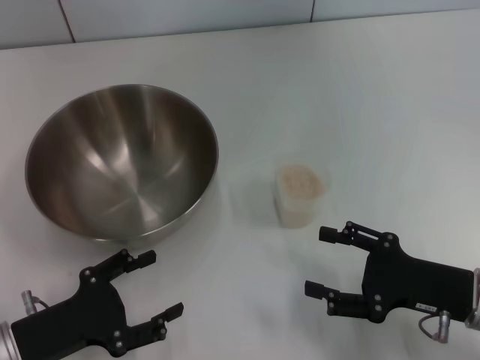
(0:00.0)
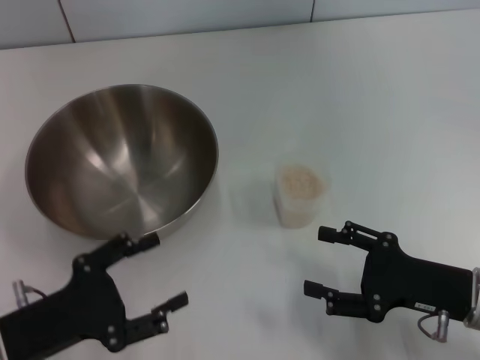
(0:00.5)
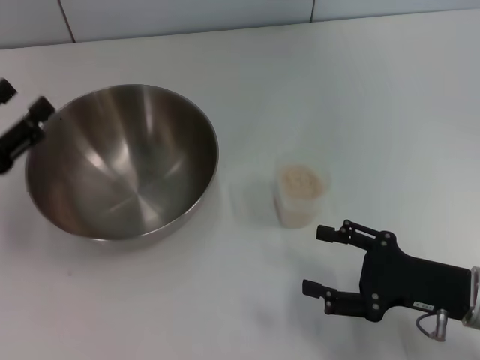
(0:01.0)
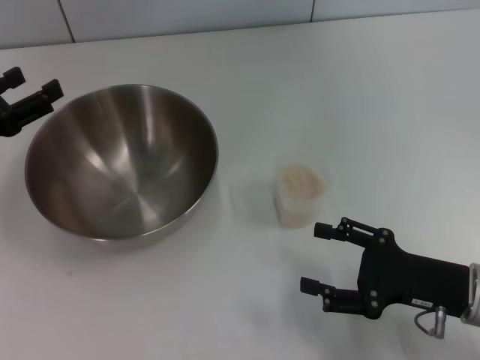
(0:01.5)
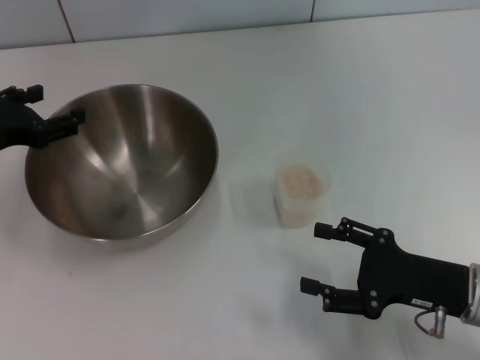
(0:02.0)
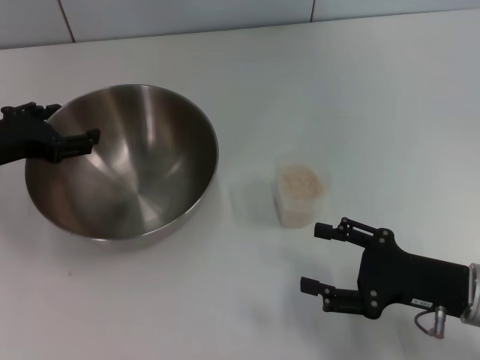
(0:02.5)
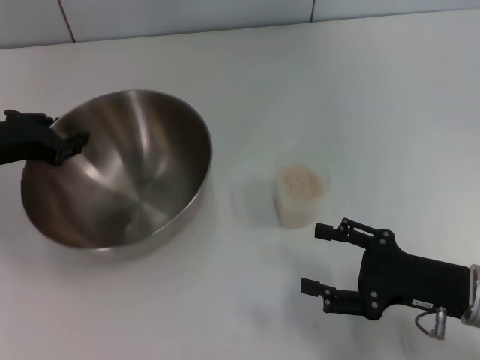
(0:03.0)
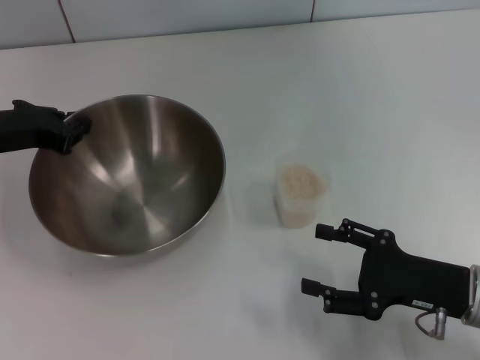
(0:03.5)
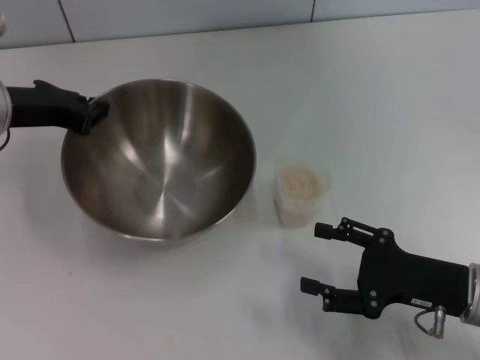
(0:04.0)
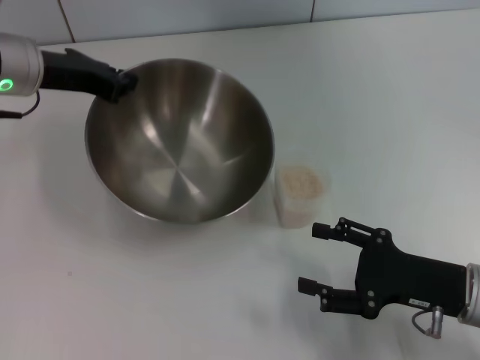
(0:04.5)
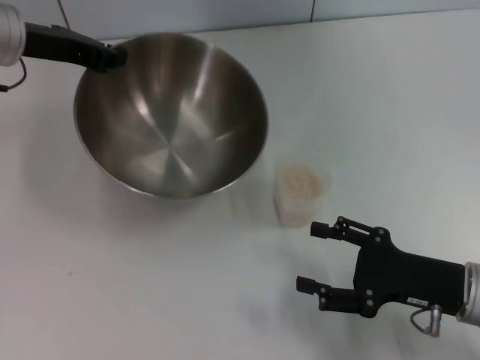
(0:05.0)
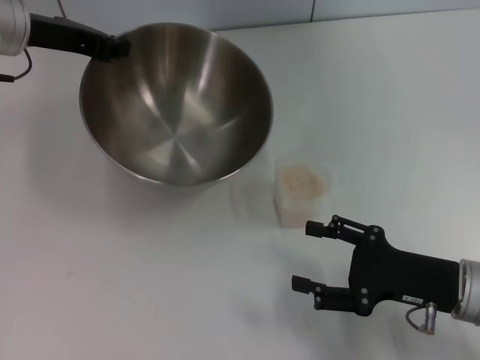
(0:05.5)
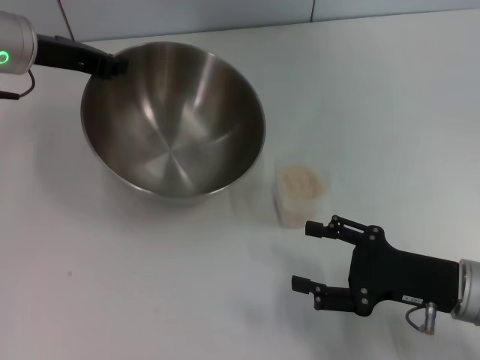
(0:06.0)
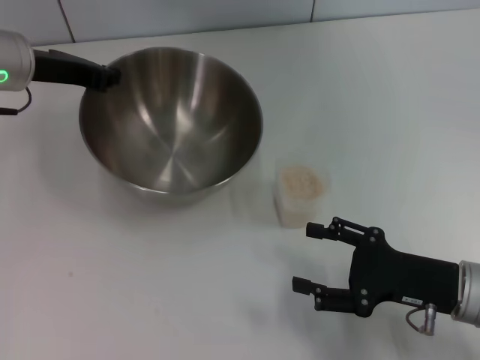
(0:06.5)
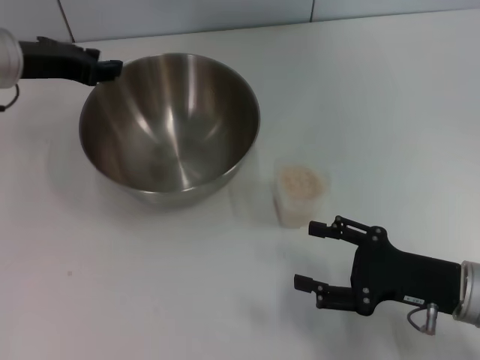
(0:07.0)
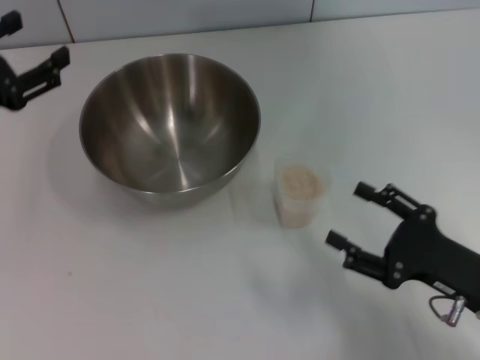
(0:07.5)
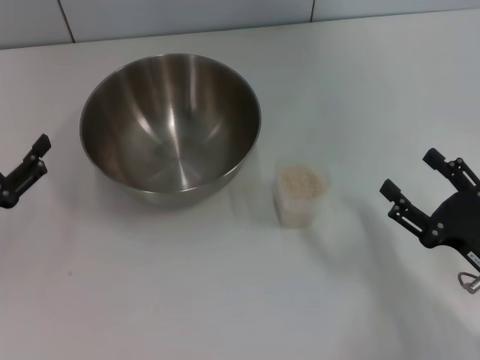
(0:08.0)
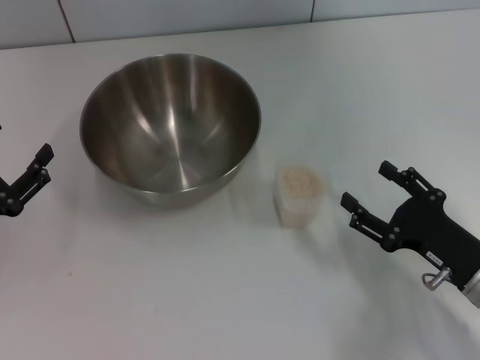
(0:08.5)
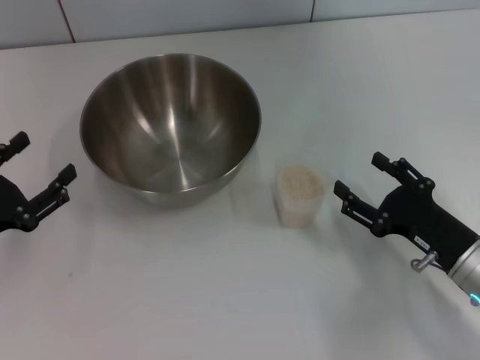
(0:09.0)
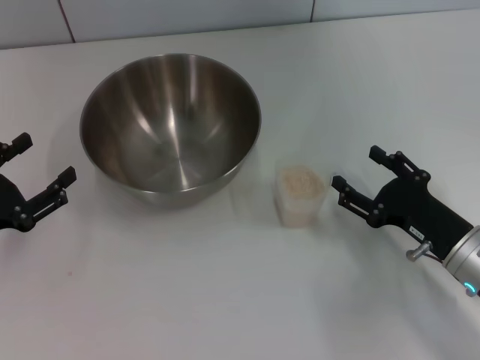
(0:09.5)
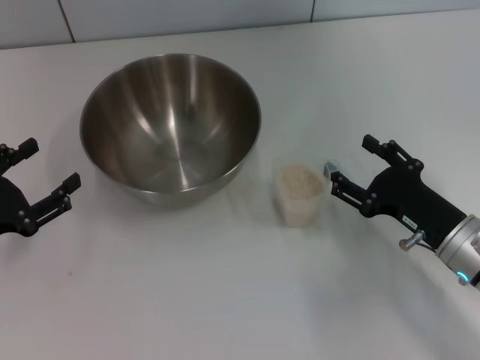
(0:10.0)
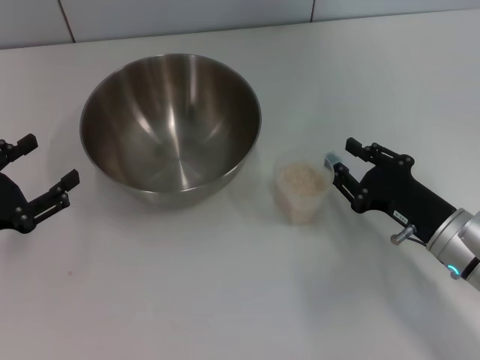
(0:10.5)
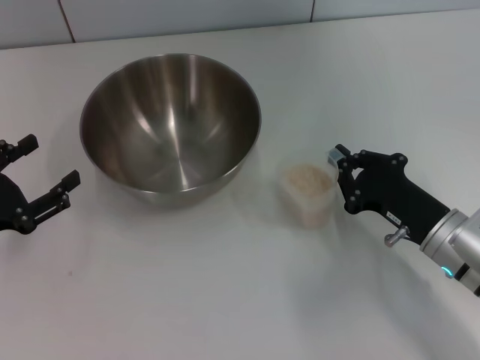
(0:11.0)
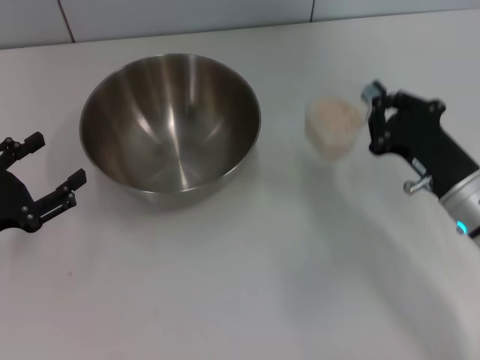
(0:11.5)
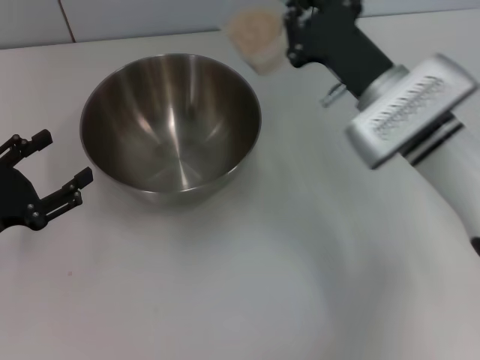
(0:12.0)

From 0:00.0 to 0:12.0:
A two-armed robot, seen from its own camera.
Task of the whole recording: Place the bowl in the middle of the table with one hand and pour the rice from the grain cup into it with the other hand.
Step, from 0:00.0 to 0:03.5: Pick up the bowl with the left gripper.
Step, from 0:04.0 to 0:07.0: Place the bowl in the center of view with the left gripper.
Step, from 0:07.5 to 0:11.5: Pick up the cup with rice in it with the right gripper.
From 0:00.0 to 0:02.0: The left gripper moves forward and upward, approximately 20 cm.
From 0:02.0 to 0:04.0: The left gripper moves approximately 5 cm, and closes up.
From 0:04.0 to 0:06.0: The left gripper is displaced forward by about 5 cm.
From 0:06.0 to 0:08.0: The left gripper moves backward, downward and to the left, some 25 cm, and opens.
From 0:08.0 to 0:10.0: The right gripper goes approximately 5 cm forward.
From 0:10.0 to 0:12.0: The right gripper travels forward, upward and to the left by approximately 15 cm, and closes its fingers.

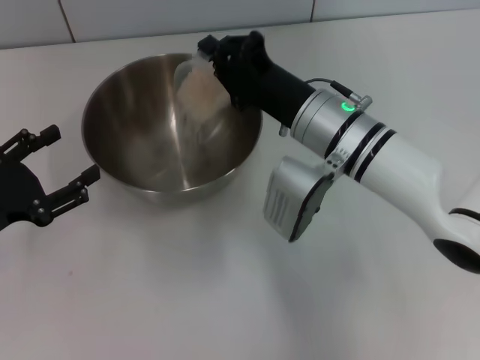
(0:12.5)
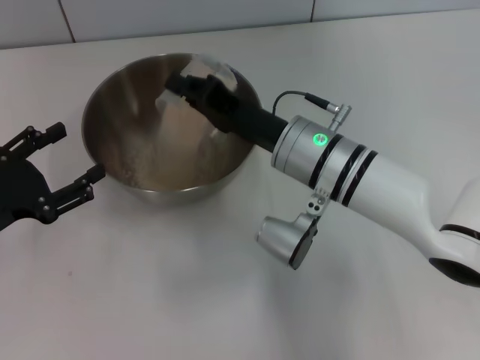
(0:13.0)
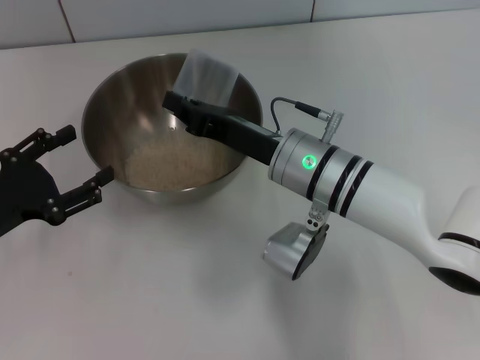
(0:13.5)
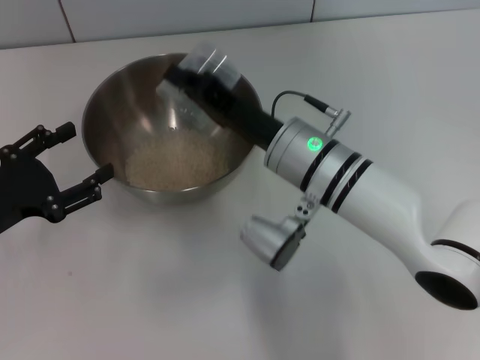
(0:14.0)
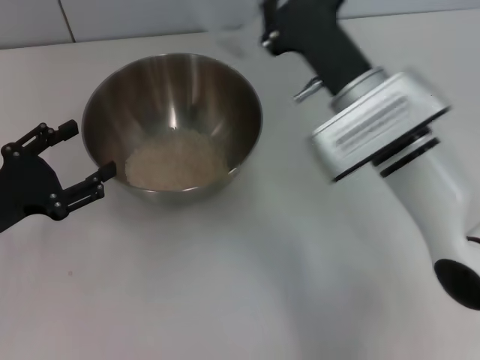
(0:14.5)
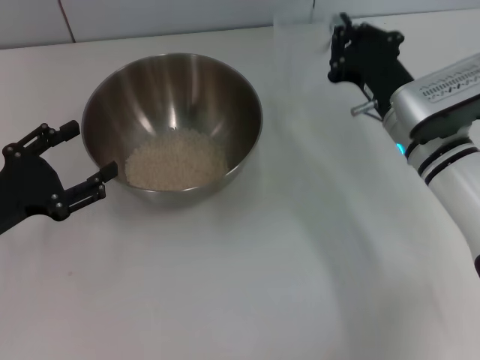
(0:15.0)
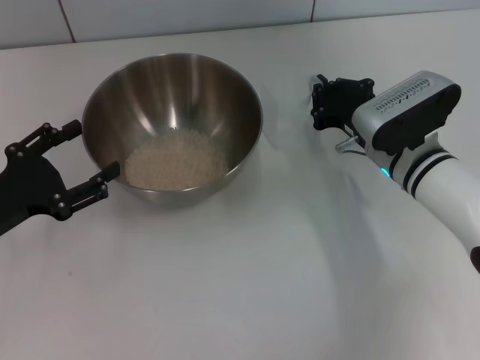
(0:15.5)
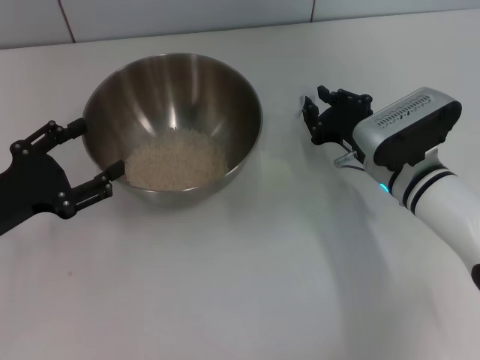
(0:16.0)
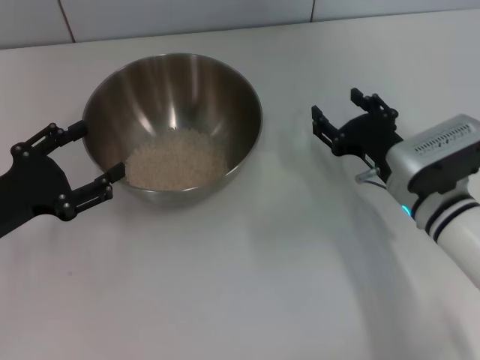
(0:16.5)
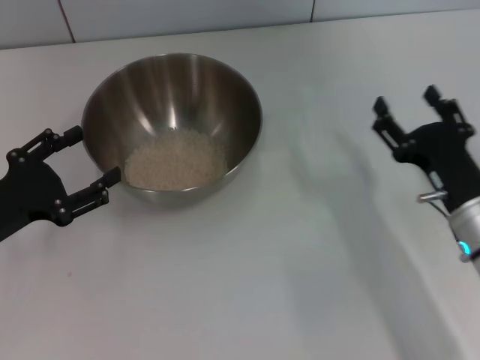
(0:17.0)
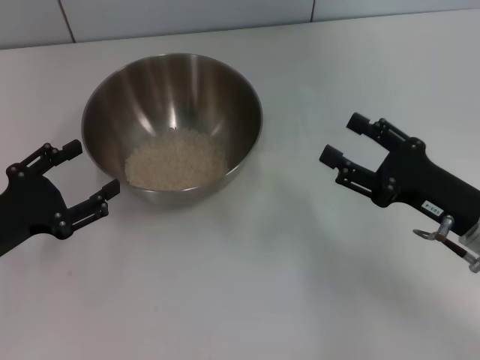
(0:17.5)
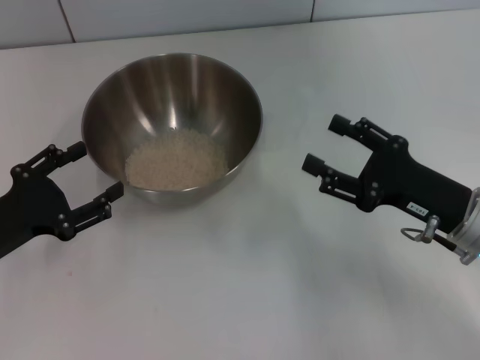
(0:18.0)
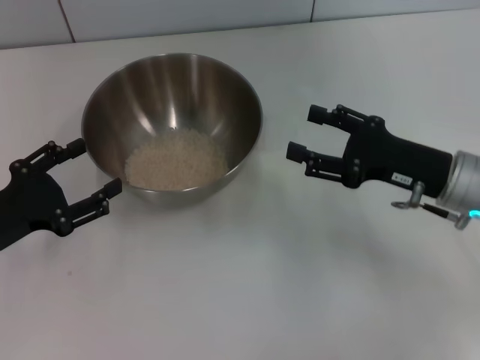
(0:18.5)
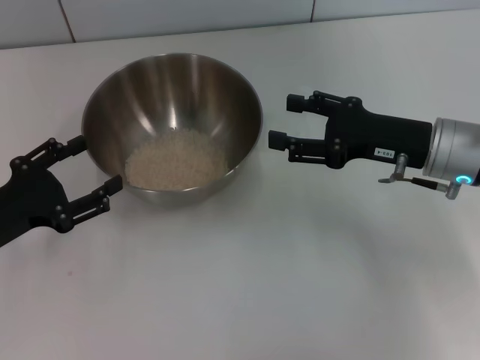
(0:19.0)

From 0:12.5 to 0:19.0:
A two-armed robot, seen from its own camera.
Task of the whole recording: Place the bowl in the middle of the table with one hand and pour the rice from the grain cup into it with the other hand.
Step, from 0:12.5 to 0:14.0: Pour the rice from the cup into the bowl with the right gripper.
Step, from 0:14.5 to 0:16.5: Place the cup on the table with the right gripper.
From 0:14.5 to 0:17.0: The right gripper travels to the right, backward and downward by about 15 cm, and opens.
From 0:17.0 to 0:19.0: The right gripper travels forward and upward by about 10 cm.

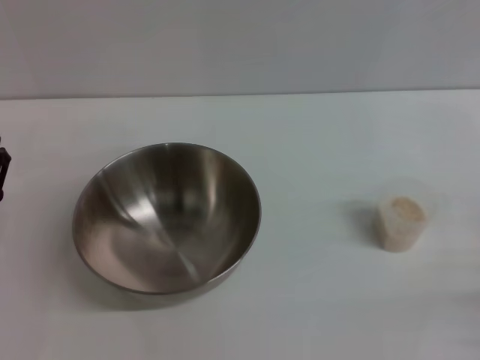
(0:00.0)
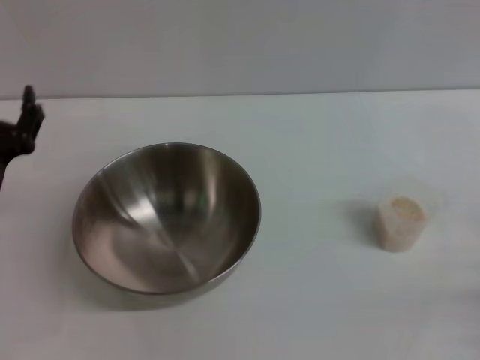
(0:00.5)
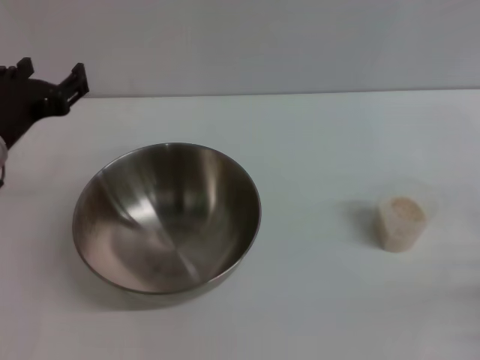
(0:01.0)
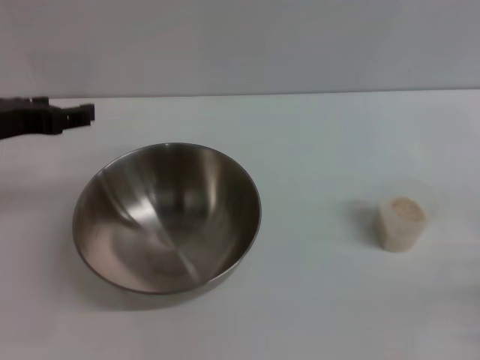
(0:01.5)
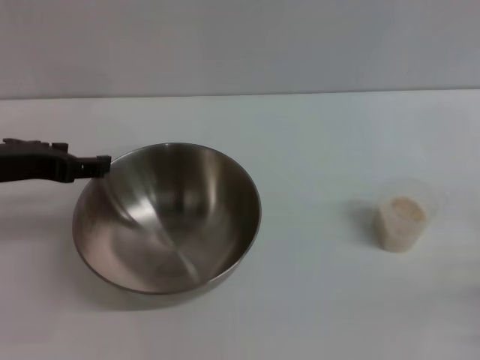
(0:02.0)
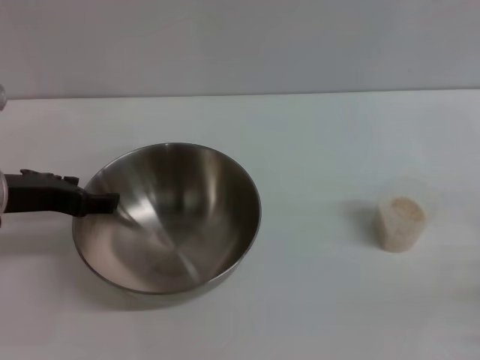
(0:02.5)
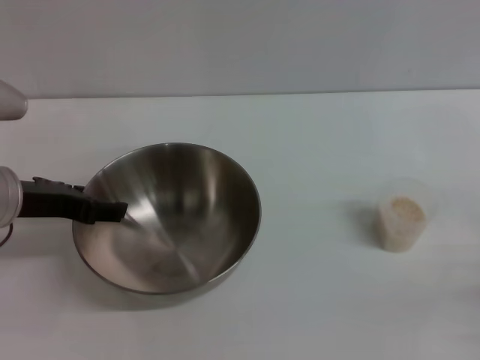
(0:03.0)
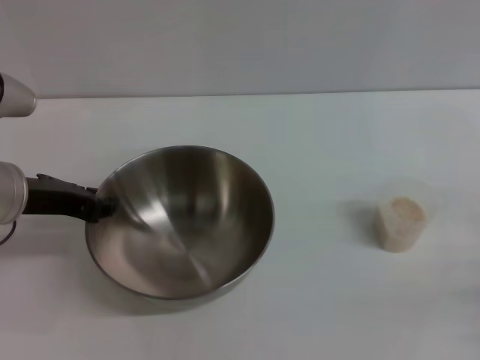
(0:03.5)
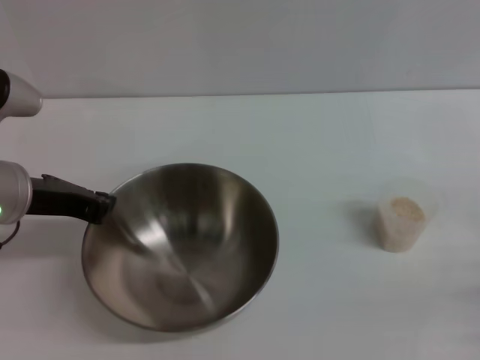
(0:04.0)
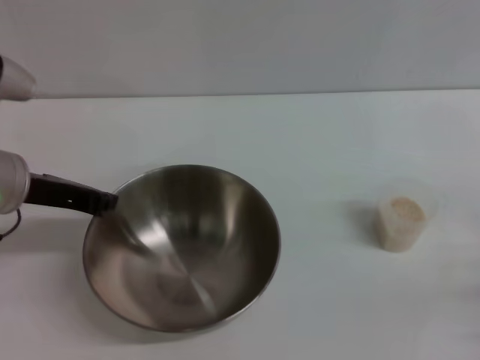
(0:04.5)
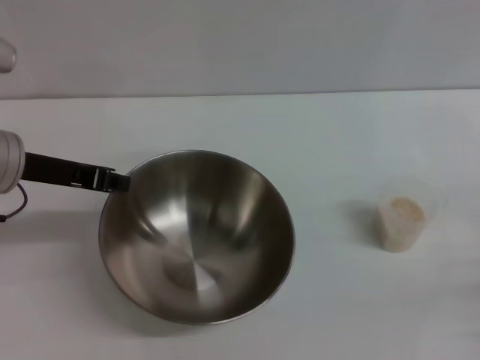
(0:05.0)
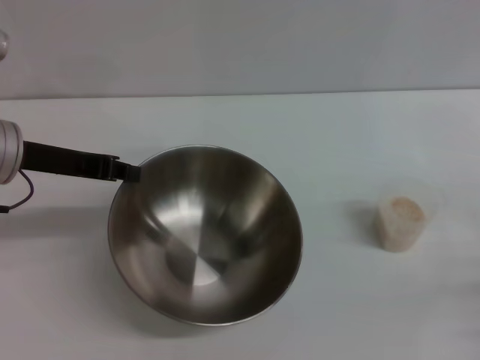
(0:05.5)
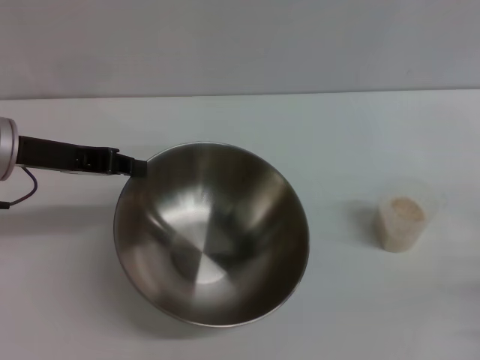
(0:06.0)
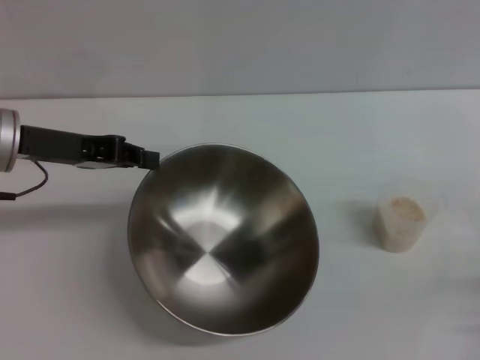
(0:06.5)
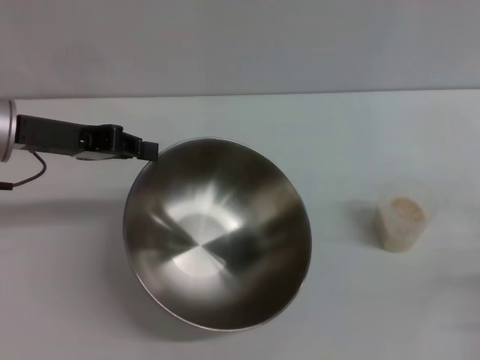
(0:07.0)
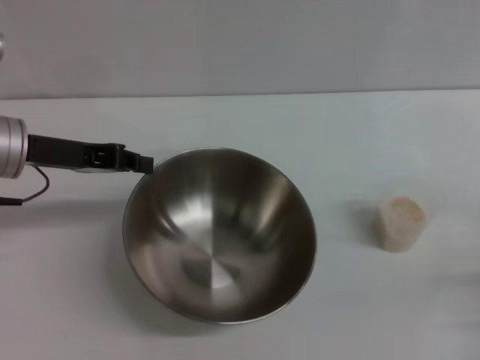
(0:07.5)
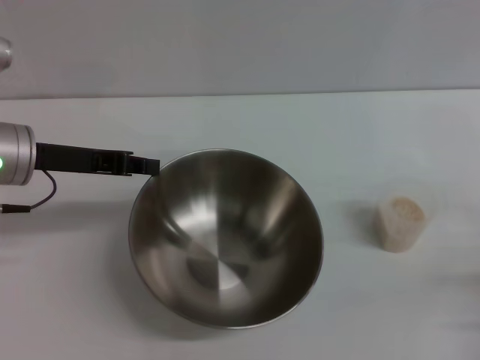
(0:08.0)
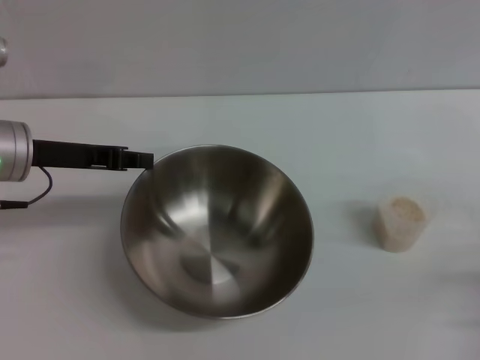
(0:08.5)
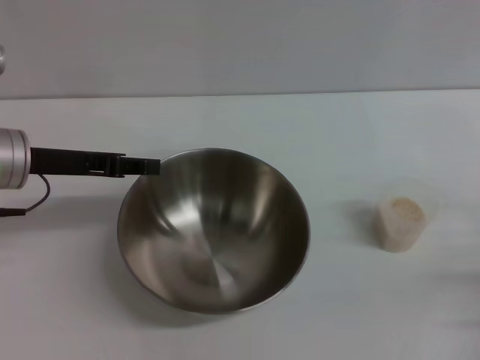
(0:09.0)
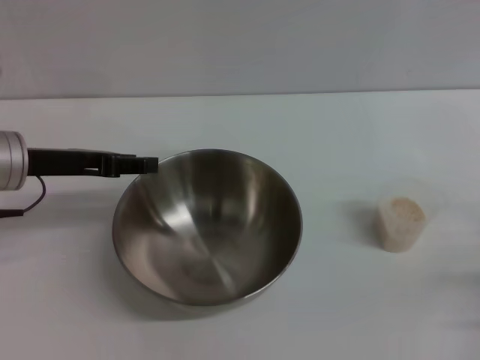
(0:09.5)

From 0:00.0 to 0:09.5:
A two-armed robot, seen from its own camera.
Task of the whole recording: Place the bowl in the middle of the table with one hand and pour the rice from the grain cup into it with the other hand.
From 0:00.0 to 0:02.0: The left gripper goes about 15 cm upward and forward.
From 0:02.0 to 0:04.0: The left gripper closes up.
From 0:05.5 to 0:07.5: The grippers move only a little.
From 0:07.5 to 0:09.5: The left gripper opens.
